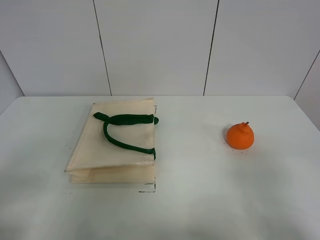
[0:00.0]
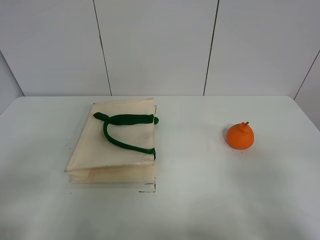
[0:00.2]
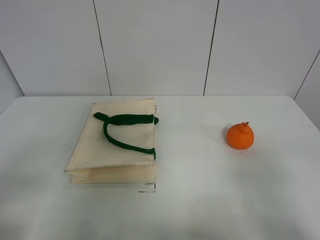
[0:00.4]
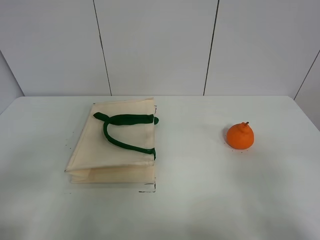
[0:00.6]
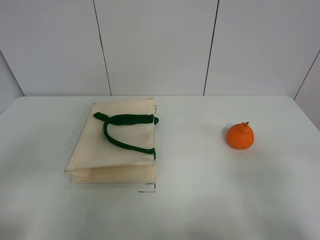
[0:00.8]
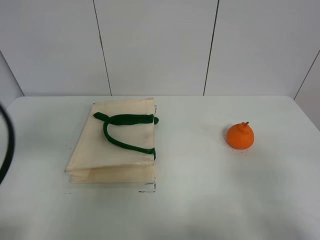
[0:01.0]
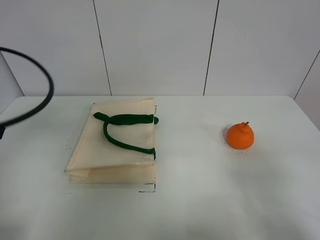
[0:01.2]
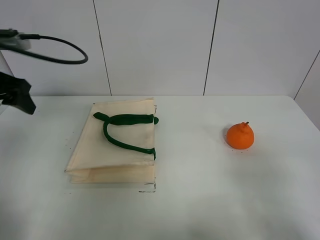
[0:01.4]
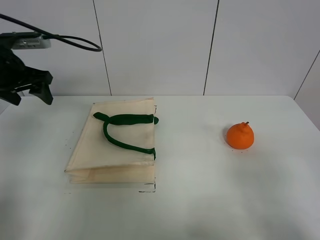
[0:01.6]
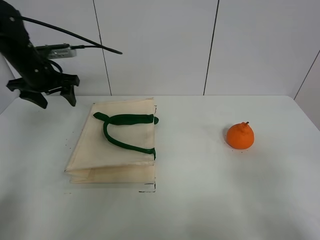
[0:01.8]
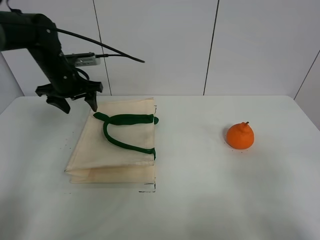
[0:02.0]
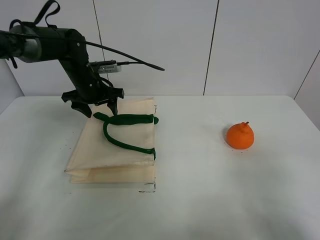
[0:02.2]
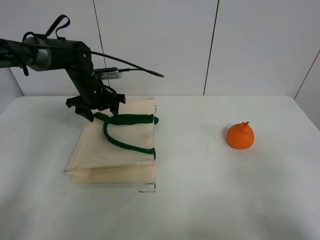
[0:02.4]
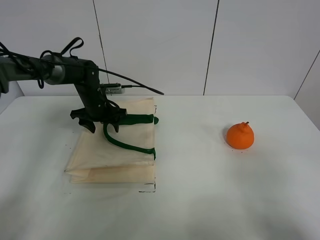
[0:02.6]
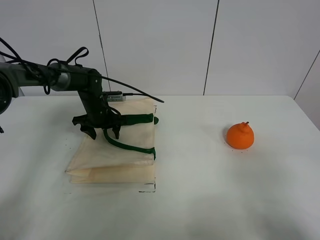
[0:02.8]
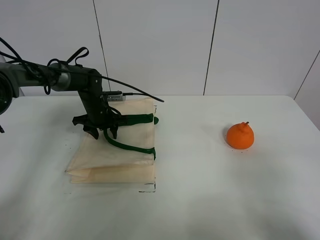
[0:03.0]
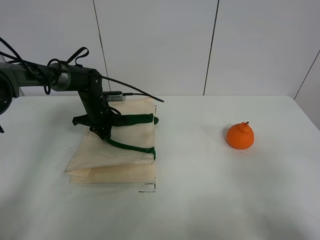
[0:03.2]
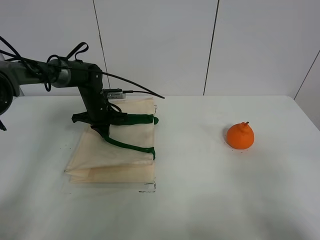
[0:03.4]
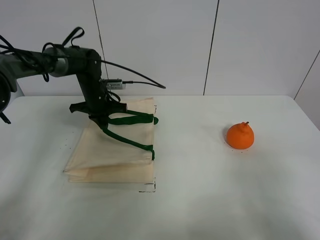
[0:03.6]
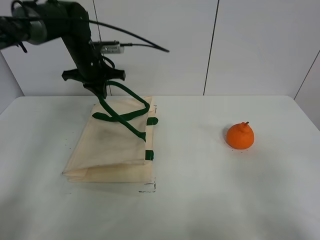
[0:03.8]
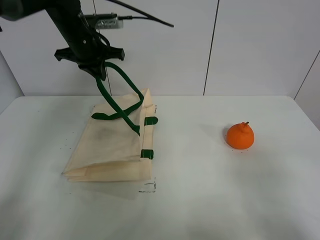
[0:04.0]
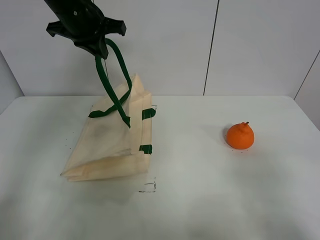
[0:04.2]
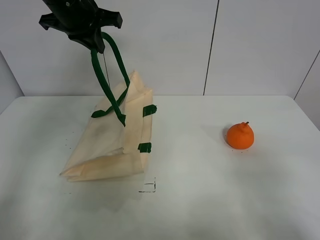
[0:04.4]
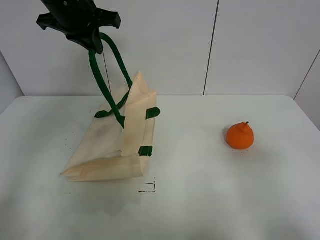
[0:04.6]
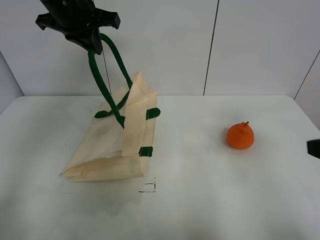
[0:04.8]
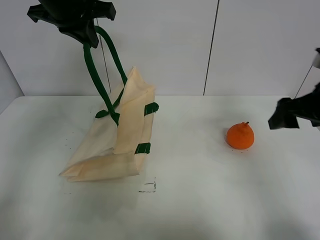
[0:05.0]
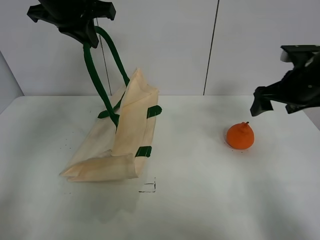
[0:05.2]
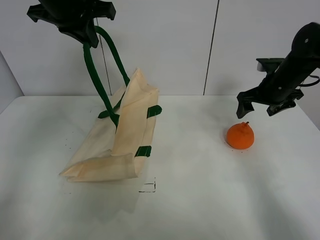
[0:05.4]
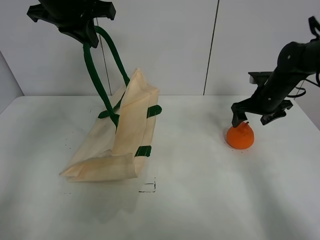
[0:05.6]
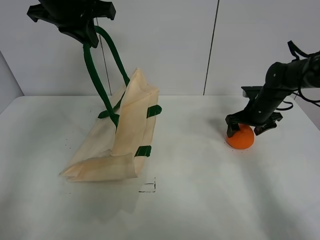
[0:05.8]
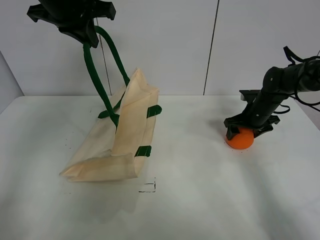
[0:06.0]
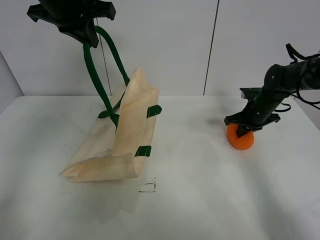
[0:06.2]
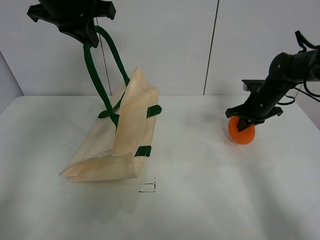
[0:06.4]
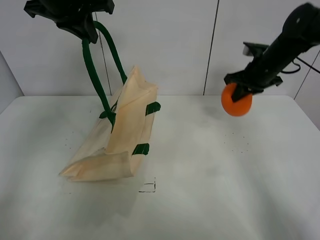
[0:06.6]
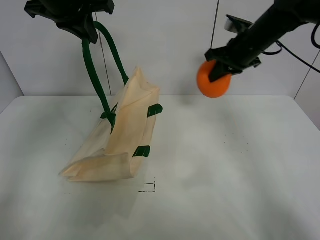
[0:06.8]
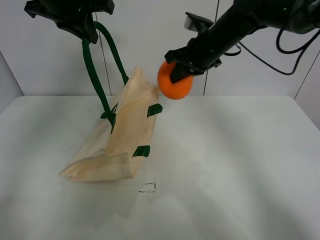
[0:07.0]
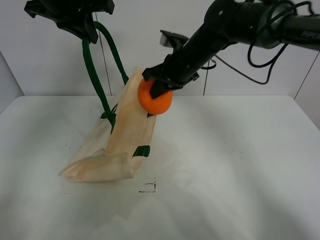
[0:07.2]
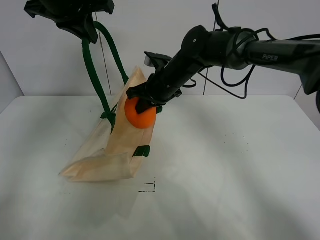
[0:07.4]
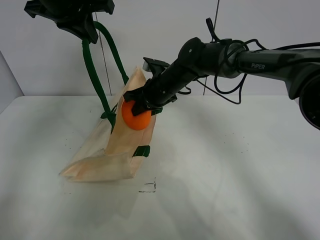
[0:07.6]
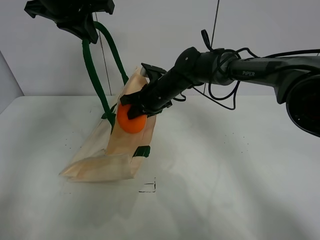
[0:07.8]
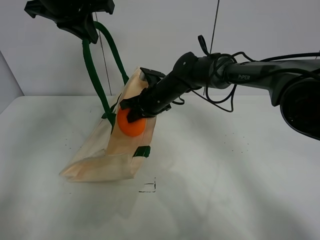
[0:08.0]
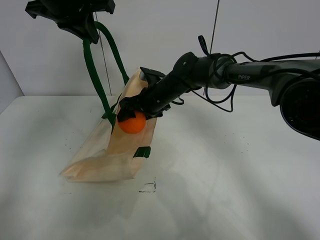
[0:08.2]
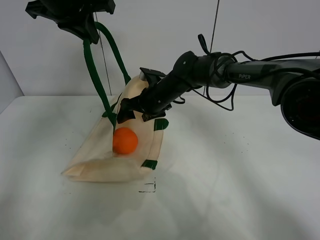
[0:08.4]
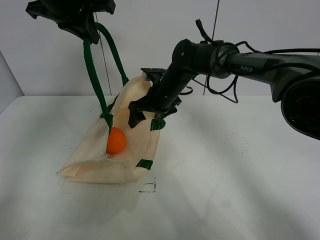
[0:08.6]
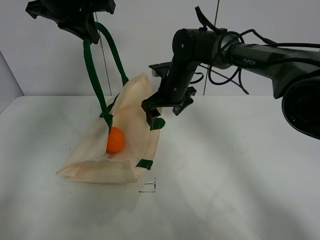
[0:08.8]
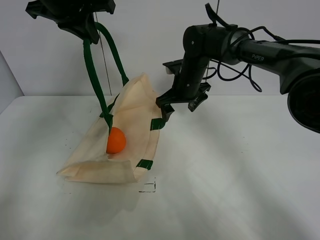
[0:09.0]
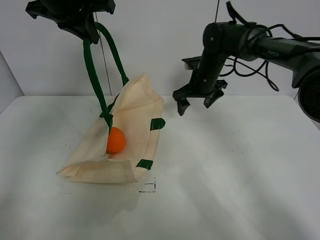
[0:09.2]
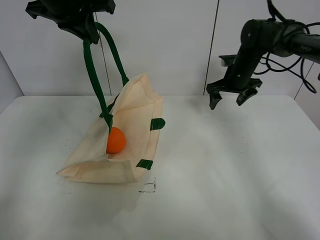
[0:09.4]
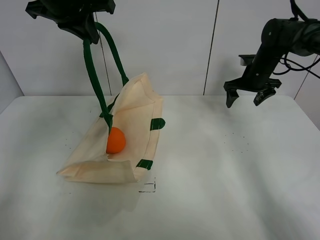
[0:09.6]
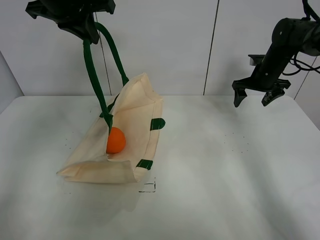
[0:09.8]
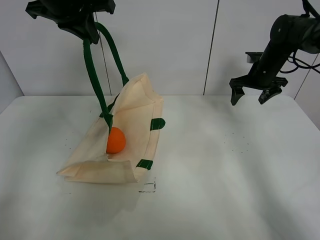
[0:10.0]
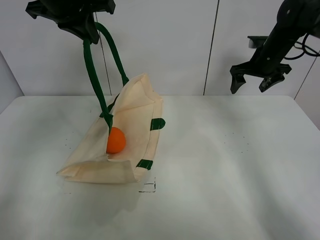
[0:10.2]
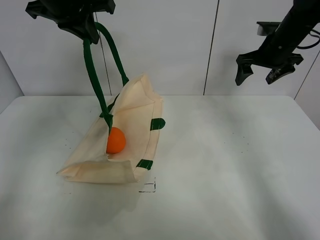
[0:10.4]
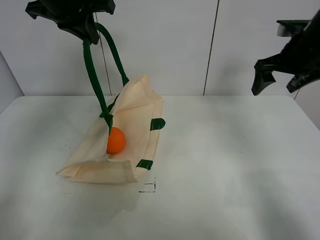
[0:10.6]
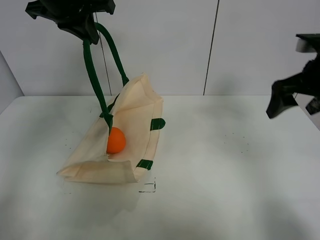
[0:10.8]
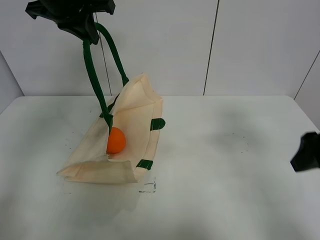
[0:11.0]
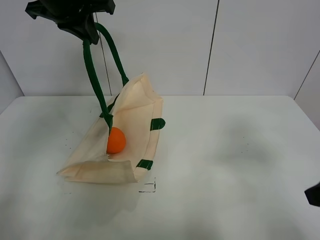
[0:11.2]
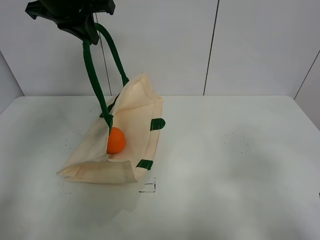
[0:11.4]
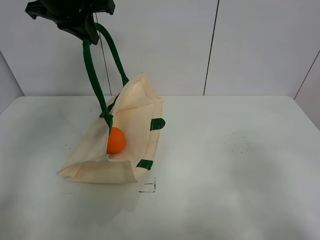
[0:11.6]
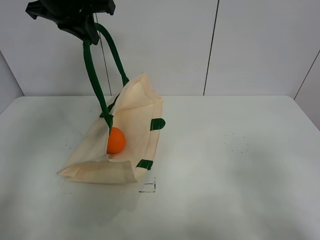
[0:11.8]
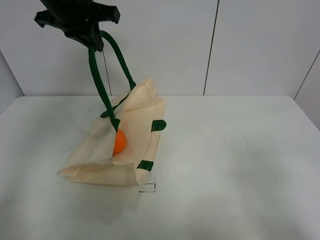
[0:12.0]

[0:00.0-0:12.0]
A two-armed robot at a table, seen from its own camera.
Task of the whole recording: open the white linen bag and put the orange in the bag.
Step, 0:00.0 to 0:04.2: Lift the handbag with left gripper.
Step, 0:04.4 to 0:06.0: Grasp the orange with right gripper.
Step, 0:06.2 to 0:08.8: Place the orange in the handbag with right gripper.
0:00.0 to 0:01.6: The left gripper moves forward, roughly 35 cm.
0:01.6 to 0:03.0: The left gripper is displaced downward, to the right and forward by some 25 cm, and closes up.
0:03.0 to 0:04.4: The left gripper shifts approximately 30 cm upward, and closes.
0:04.4 to 0:06.0: The right gripper moves forward, some 40 cm.
0:06.0 to 0:07.6: The right gripper shifts approximately 25 cm to the left, and closes its fingers.
0:07.6 to 0:09.0: The right gripper goes roughly 5 cm to the right, and opens.
0:09.0 to 0:10.4: The right gripper is displaced to the right and upward by roughly 20 cm.
0:10.4 to 0:12.0: The right gripper shifts about 40 cm backward.

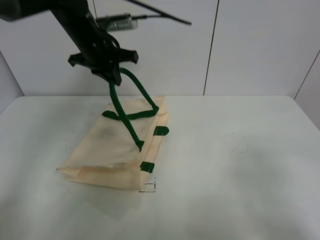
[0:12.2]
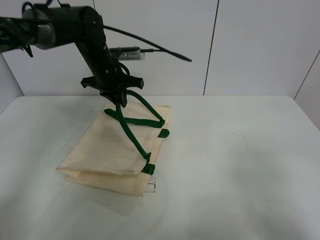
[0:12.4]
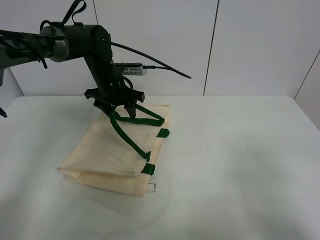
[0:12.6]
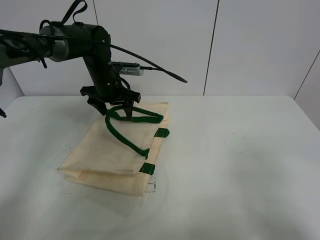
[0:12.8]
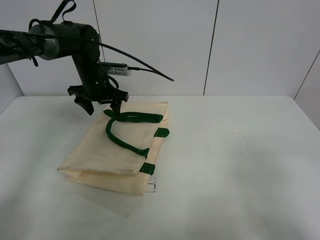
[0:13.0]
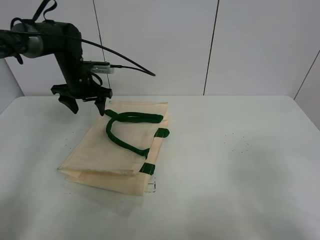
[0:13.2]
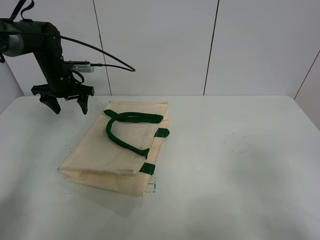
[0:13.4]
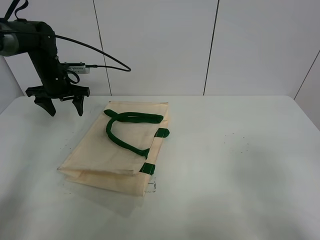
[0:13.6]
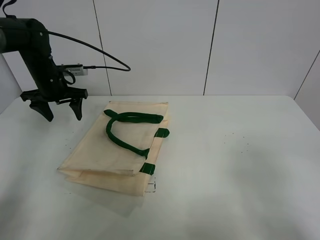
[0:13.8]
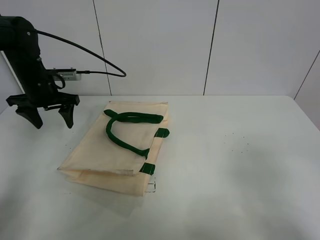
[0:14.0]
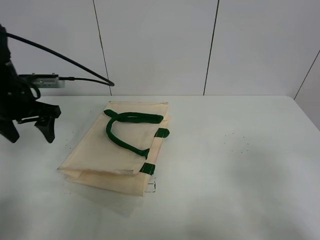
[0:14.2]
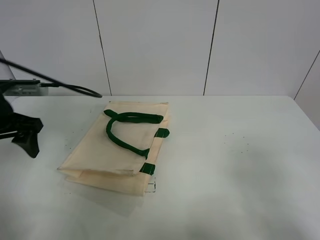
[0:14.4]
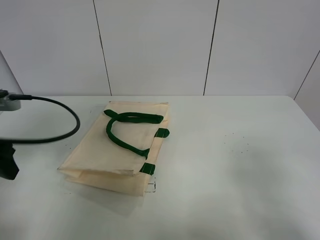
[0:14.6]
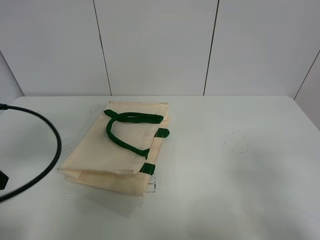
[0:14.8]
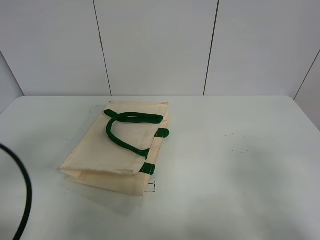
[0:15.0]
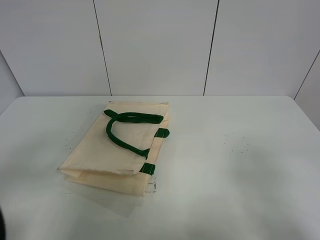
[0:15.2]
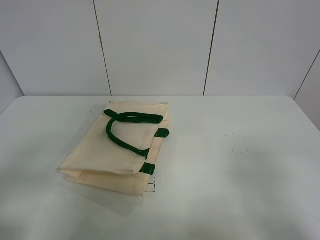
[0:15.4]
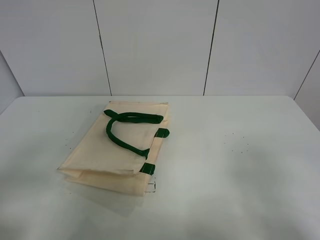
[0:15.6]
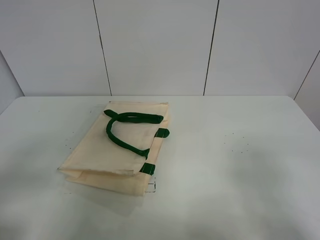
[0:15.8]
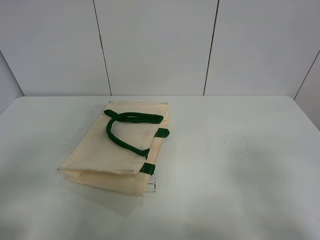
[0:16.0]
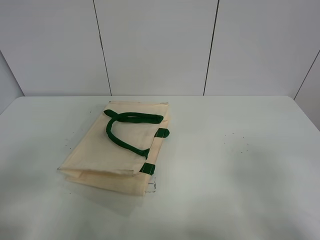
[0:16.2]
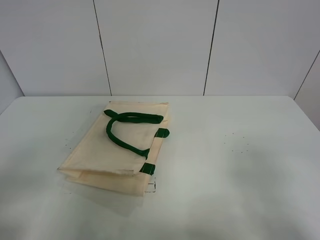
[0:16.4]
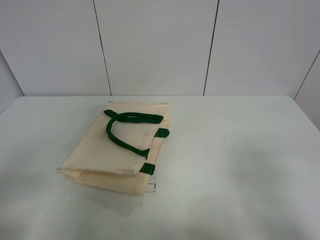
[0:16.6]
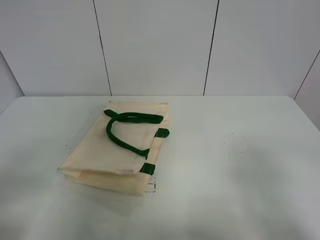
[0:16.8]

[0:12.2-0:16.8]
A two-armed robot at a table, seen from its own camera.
Task of the whole recording: open the white linen bag and put the orange in the bag.
0:12.2 to 0:13.8: The left gripper travels to the left and downward by approximately 15 cm, and opens up.
0:13.8 to 0:15.2: The left gripper heads backward, covering some 40 cm.

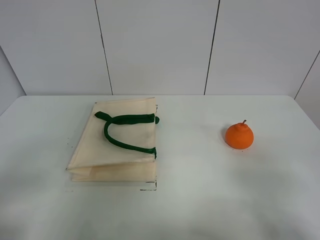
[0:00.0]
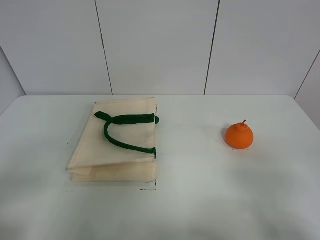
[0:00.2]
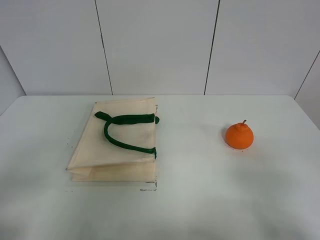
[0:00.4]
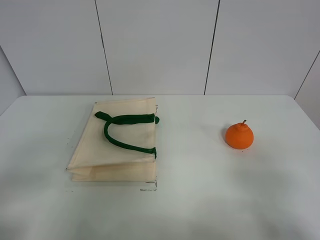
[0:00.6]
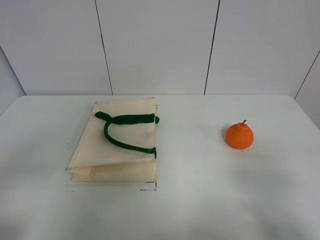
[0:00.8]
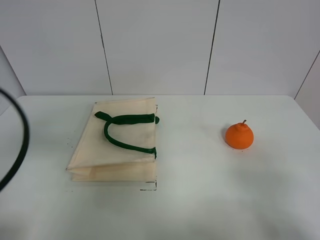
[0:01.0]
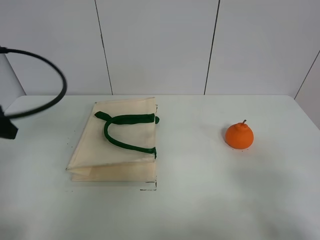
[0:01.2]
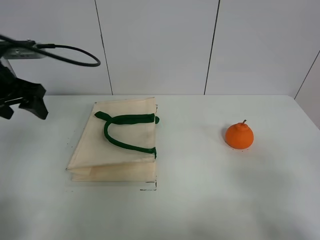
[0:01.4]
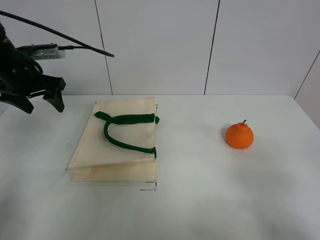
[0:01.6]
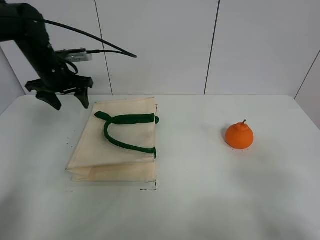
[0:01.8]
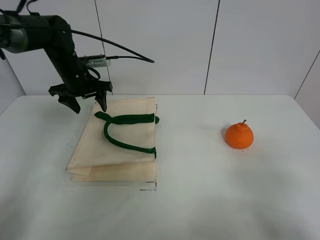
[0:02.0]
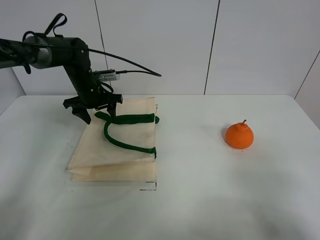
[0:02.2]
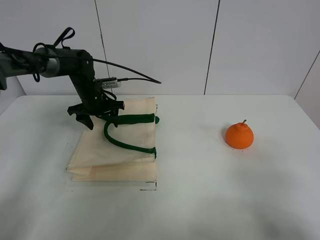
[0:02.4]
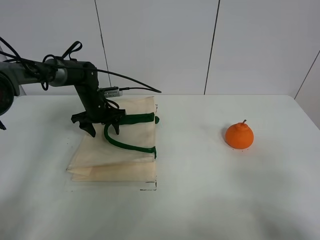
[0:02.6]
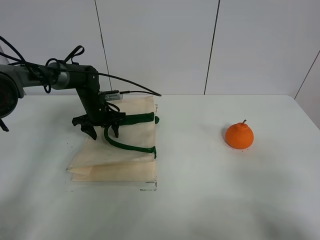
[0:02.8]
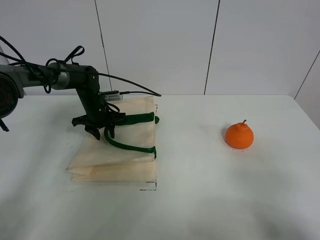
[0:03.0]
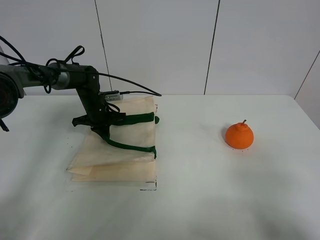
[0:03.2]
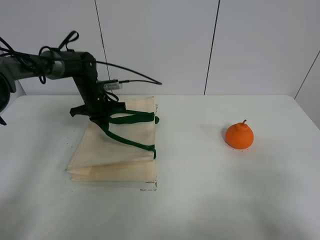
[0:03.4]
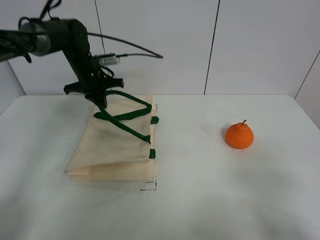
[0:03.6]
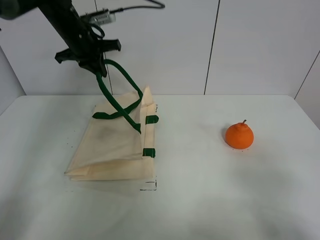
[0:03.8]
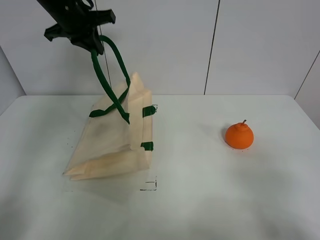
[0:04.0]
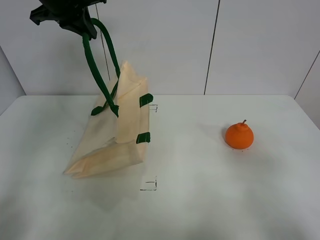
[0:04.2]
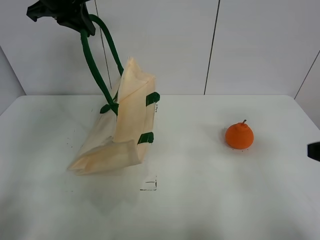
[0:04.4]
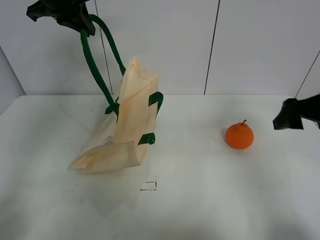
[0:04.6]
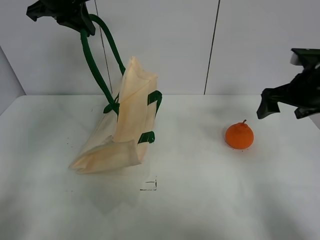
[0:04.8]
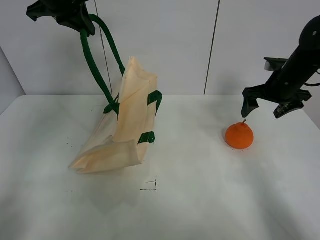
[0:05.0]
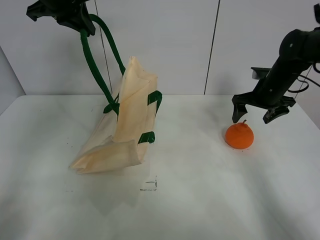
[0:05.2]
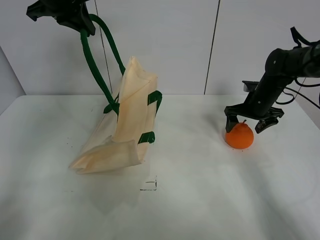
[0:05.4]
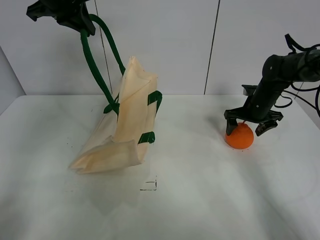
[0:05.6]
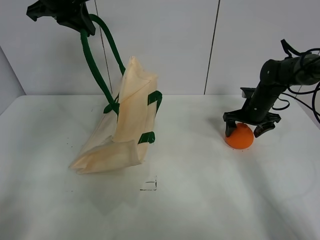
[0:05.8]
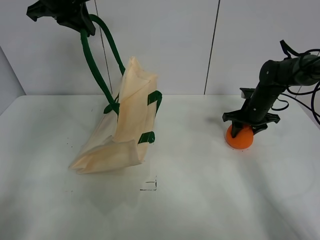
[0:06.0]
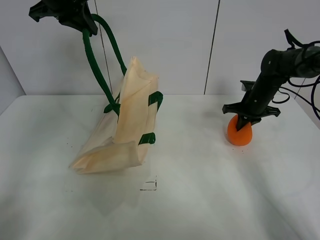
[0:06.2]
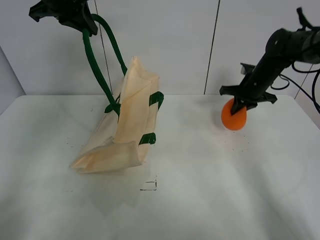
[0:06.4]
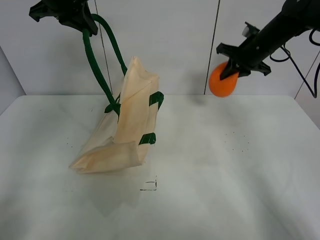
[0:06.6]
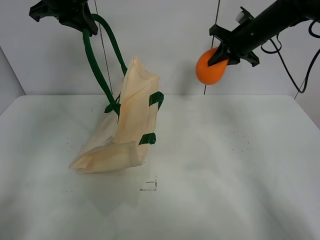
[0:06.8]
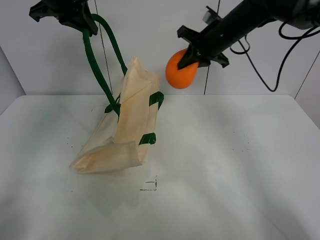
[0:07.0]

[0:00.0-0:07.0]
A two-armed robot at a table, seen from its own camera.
Task of the whole recording: open the white linen bag and put the orange in the bag.
Step, 0:00.0 to 0:04.2: Lift the handbag with left gripper.
0:00.0 to 0:01.4: The left gripper goes about 30 cm forward.
0:01.4 to 0:02.8: The left gripper heads downward, forward and to the right, covering some 25 cm.
0:02.8 to 0:04.2: The left gripper goes approximately 30 cm upward, and closes its fingers; the right gripper heads forward, covering about 5 cm.
0:04.2 to 0:05.6: The right gripper travels forward and downward by some 40 cm.
0:05.6 to 0:07.0: The right gripper goes about 20 cm upward and to the left, and closes up.
